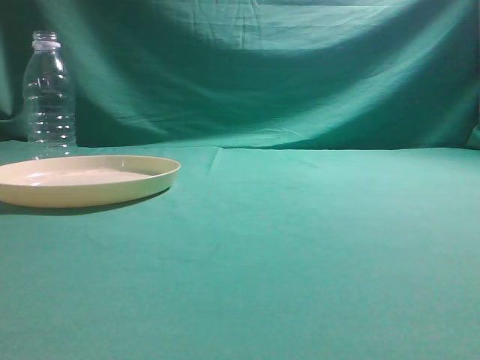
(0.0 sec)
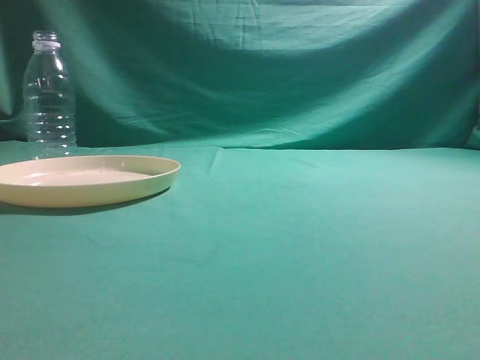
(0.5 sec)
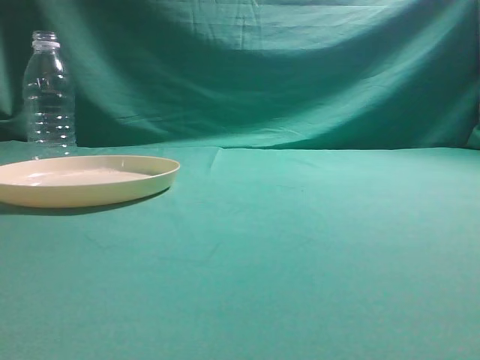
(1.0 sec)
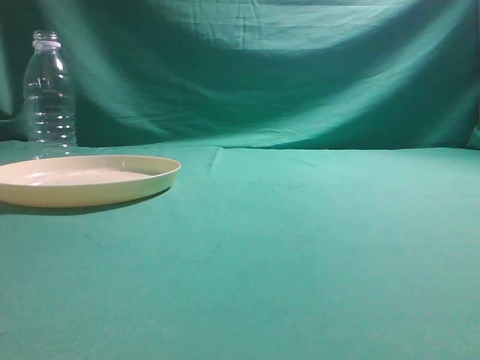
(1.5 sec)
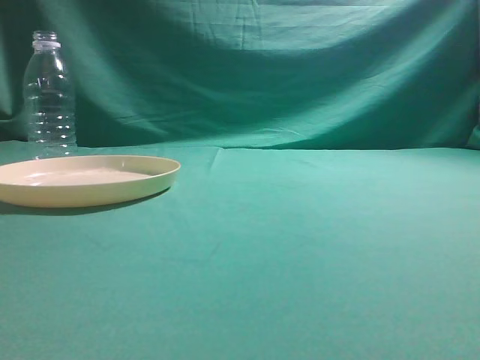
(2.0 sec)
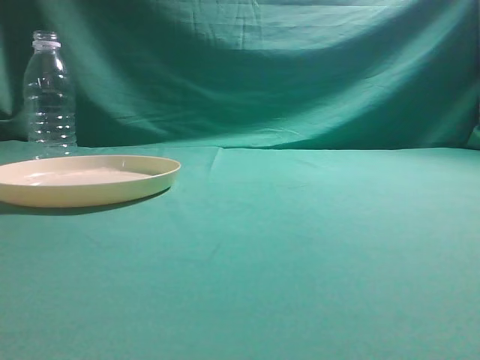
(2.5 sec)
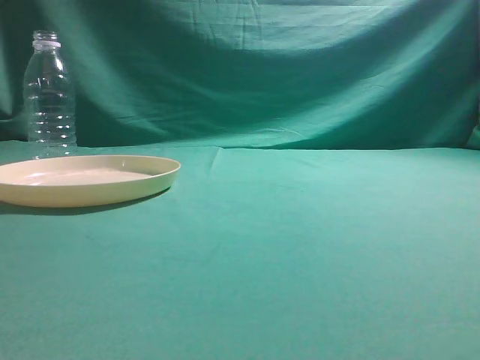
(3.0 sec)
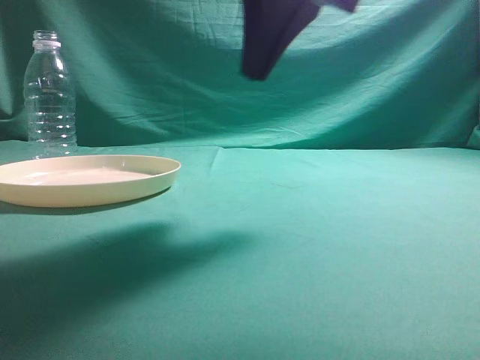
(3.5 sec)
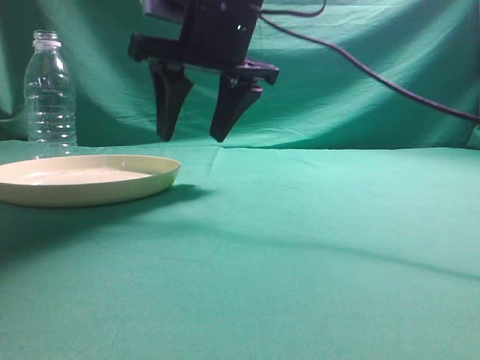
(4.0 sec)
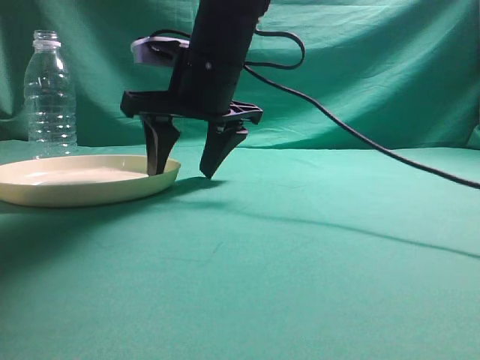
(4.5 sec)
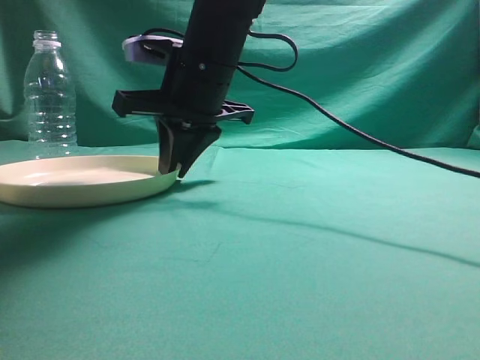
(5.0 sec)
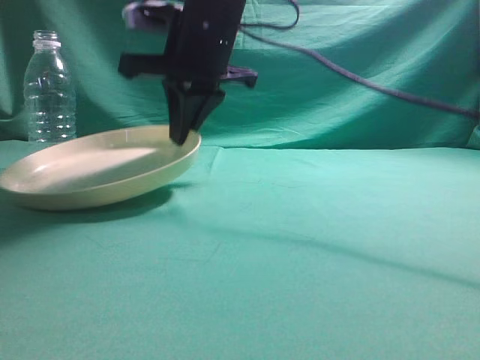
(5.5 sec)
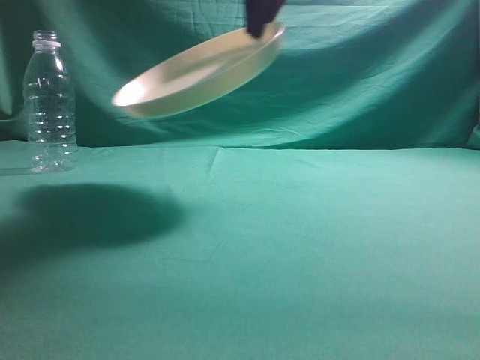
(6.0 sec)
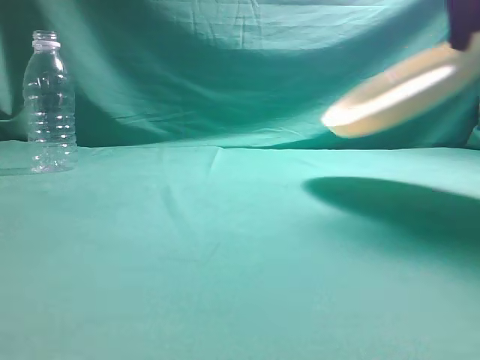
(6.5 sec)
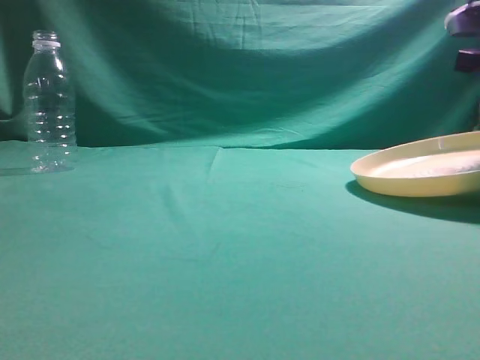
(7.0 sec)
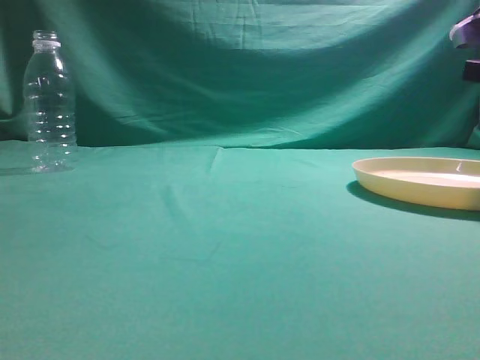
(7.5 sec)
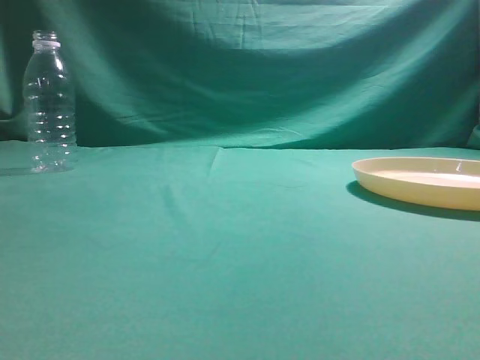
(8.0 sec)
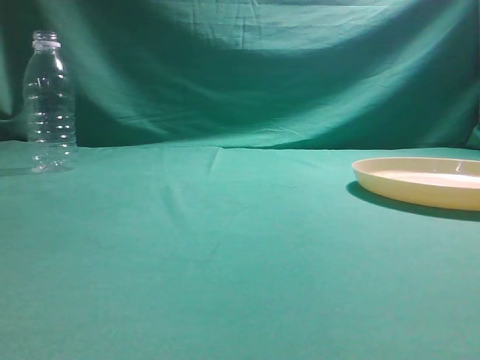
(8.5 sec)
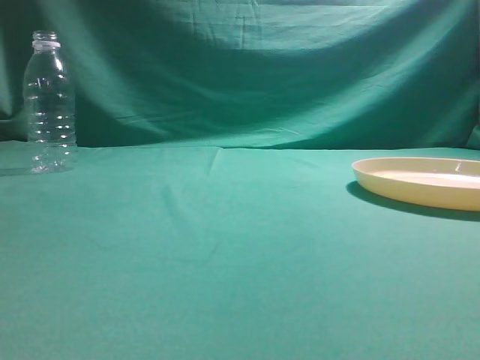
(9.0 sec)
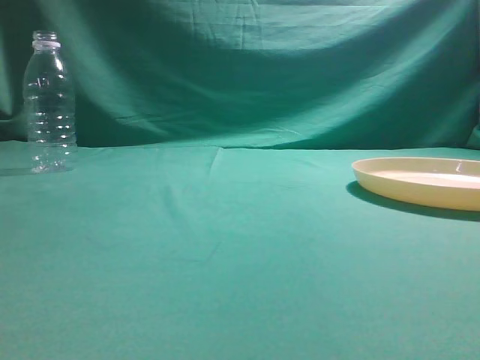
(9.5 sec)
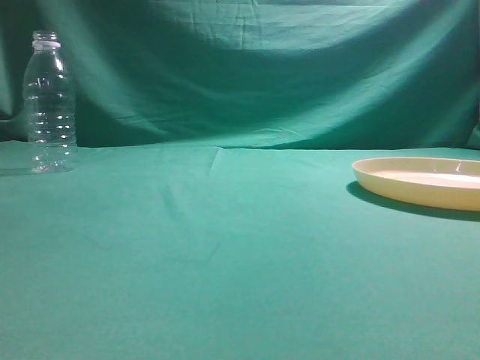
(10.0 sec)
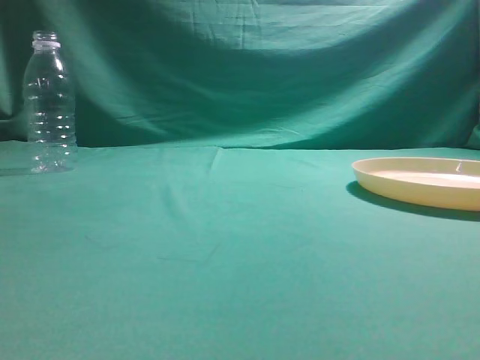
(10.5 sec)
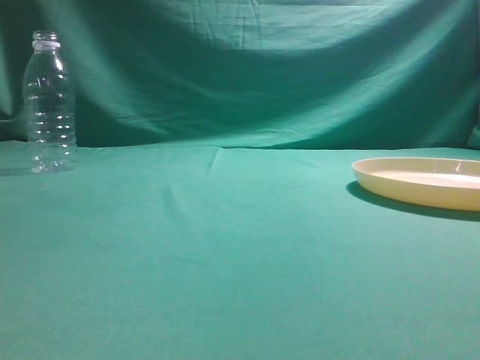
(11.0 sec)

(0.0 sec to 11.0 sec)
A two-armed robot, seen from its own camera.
Step, 0.0 sec - 5.5 sec: Pick the container that can hold fruits.
Step, 6.0 sec - 8.0 sec: Move the picked object to the right side of the table.
2.0 sec - 3.5 sec: The right gripper moves forward and to the left, some 30 cm.
3.5 sec - 5.5 sec: The right gripper moves to the left, forward and downward, approximately 20 cm, and opens, then closes again.
5.5 sec - 7.5 sec: The right gripper shifts roughly 30 cm to the right, and opens.
